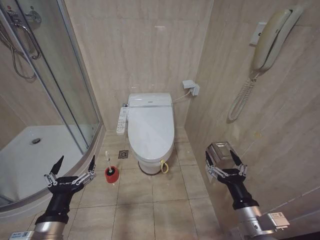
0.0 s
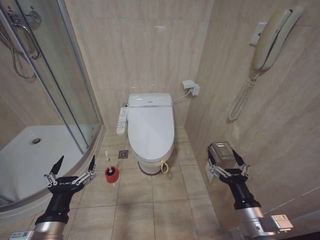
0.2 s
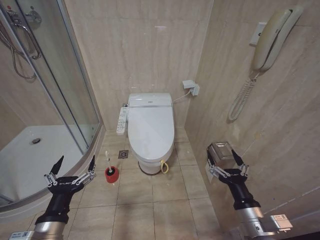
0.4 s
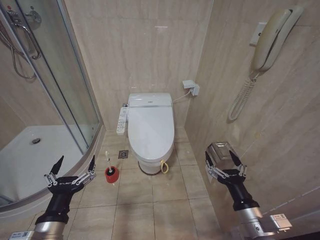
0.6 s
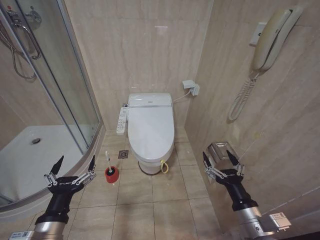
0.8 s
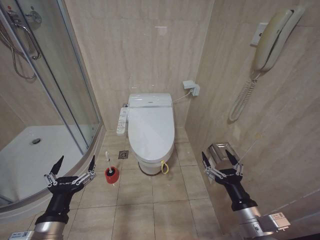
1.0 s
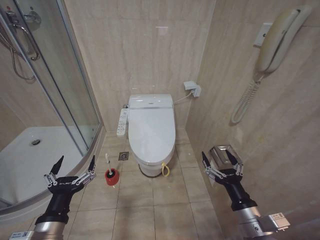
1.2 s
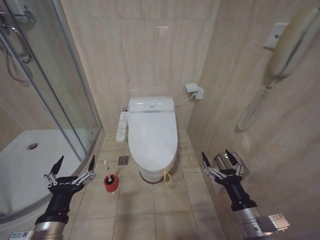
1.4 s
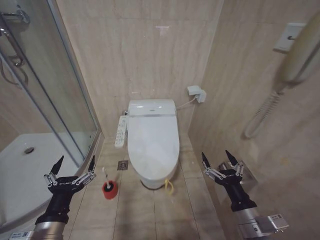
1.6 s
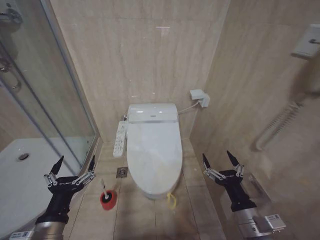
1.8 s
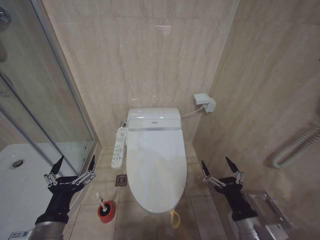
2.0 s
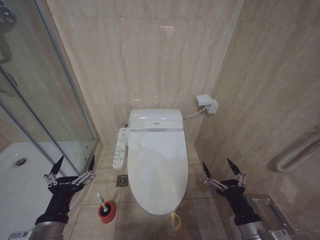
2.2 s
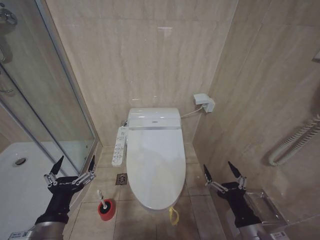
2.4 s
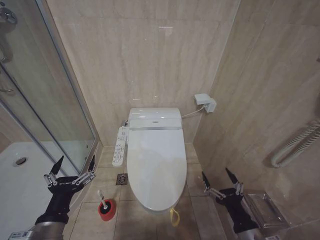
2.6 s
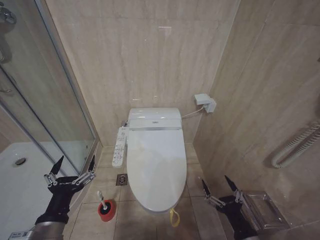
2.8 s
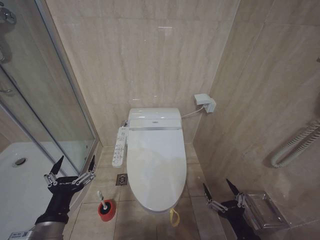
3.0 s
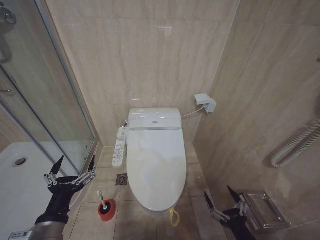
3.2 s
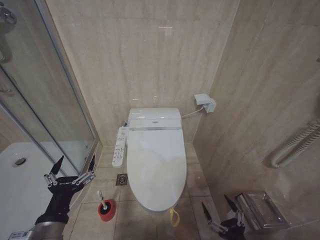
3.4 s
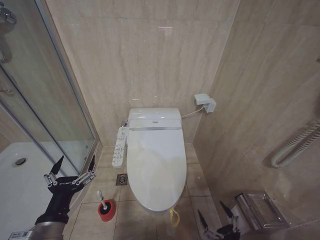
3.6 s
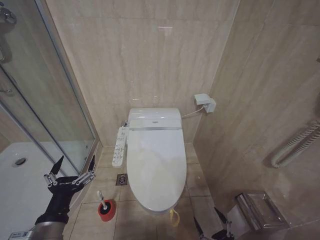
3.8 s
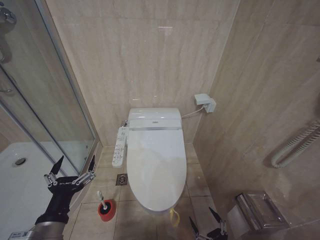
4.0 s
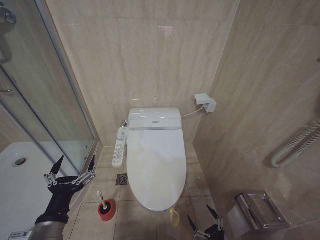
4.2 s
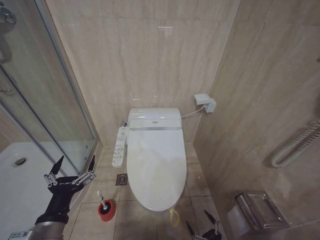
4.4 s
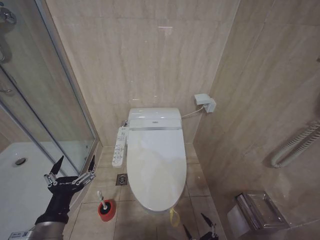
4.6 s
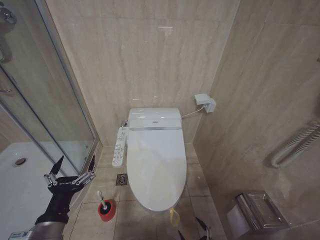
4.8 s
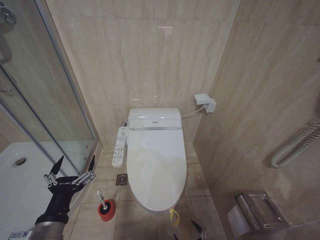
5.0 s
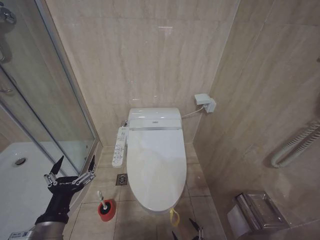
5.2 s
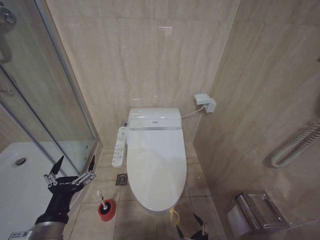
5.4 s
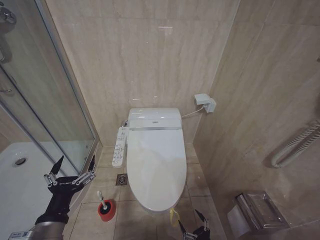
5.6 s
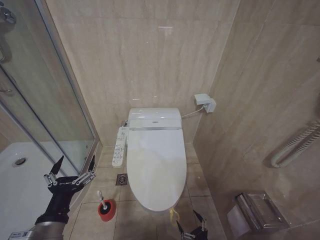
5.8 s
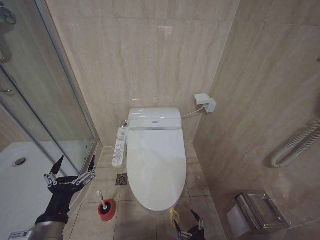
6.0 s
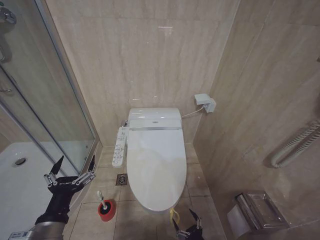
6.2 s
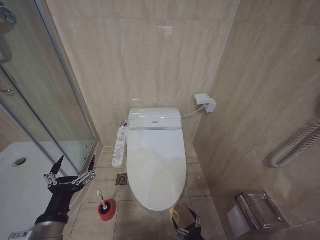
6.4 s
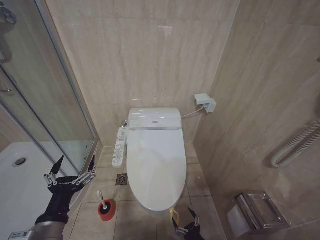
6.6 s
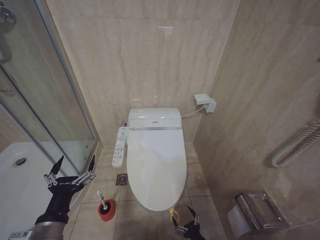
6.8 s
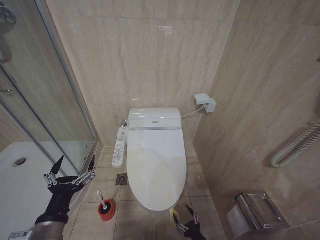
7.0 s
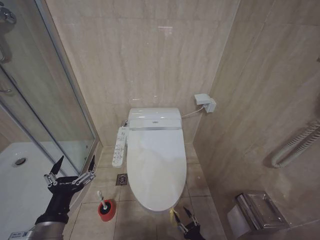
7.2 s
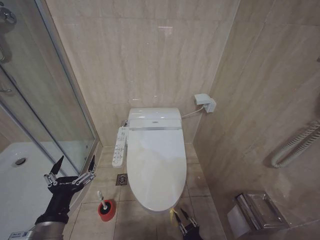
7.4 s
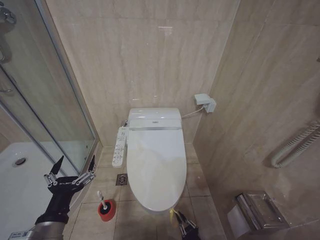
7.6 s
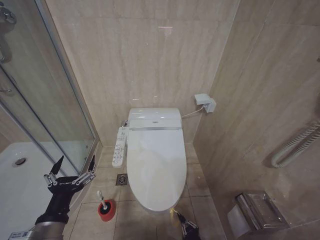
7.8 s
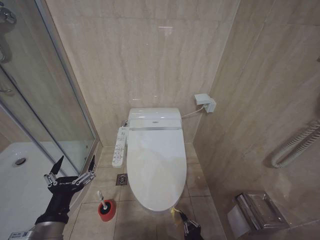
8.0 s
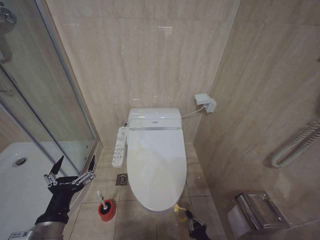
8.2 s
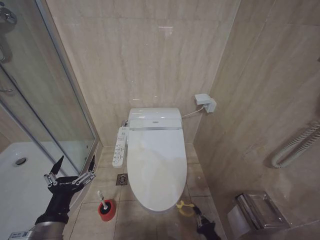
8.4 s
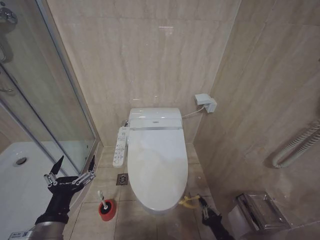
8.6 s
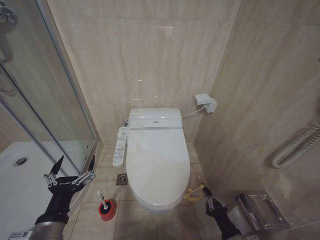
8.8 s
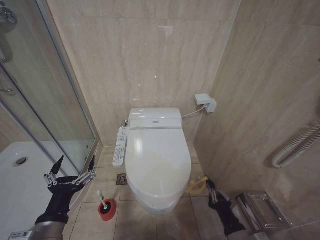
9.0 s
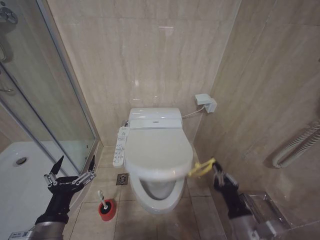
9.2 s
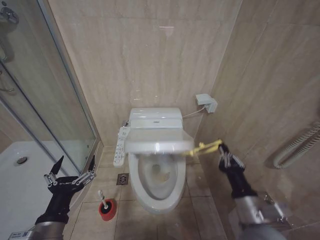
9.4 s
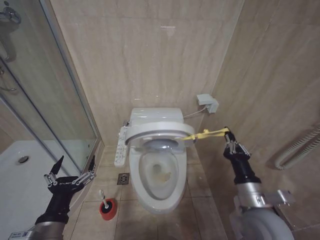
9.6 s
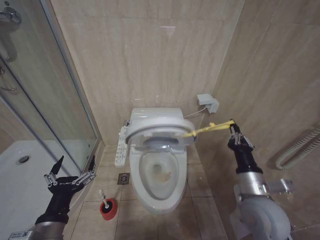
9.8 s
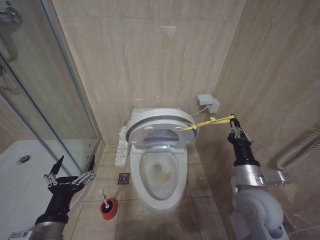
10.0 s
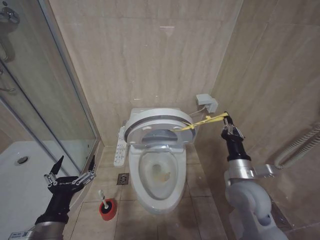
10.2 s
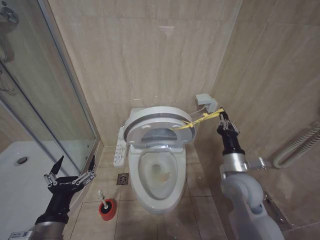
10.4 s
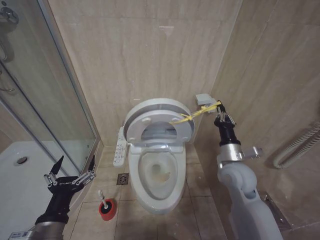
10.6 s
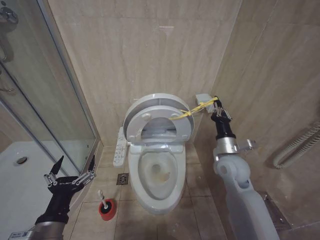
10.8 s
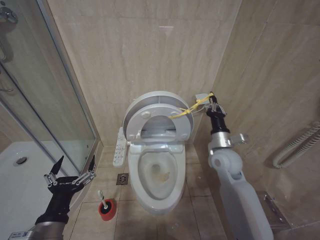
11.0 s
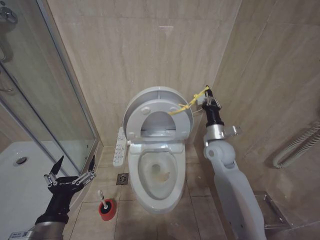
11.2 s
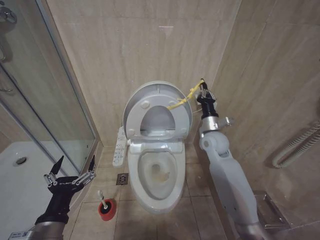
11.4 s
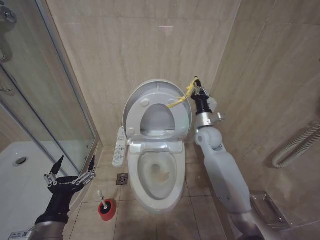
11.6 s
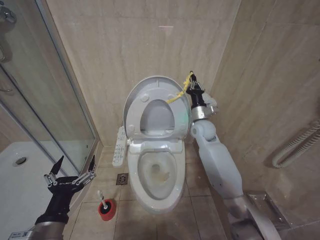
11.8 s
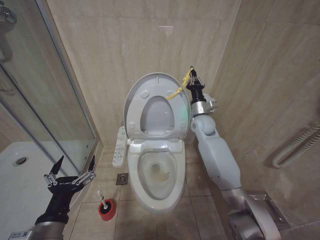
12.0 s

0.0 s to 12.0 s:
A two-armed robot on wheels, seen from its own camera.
Task of the whole recording: Open the toilet lid, clean the toilet bowl with a toilet brush, close the toilet lid, and flush.
1.6 to 3.0 s: The right gripper moves downward and backward, about 10 cm.
3.0 to 4.4 s: The right gripper moves downward, about 10 cm.
7.6 to 9.0 s: The right gripper goes roughly 15 cm upward.
9.0 to 10.4 s: The right gripper travels forward and upward by roughly 20 cm.
10.4 to 12.0 s: The right gripper heads forward, covering about 25 cm.

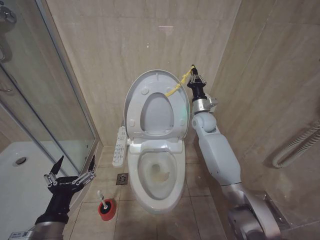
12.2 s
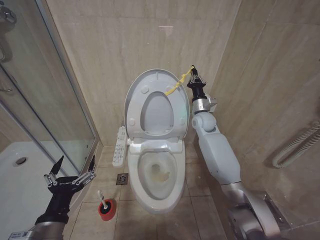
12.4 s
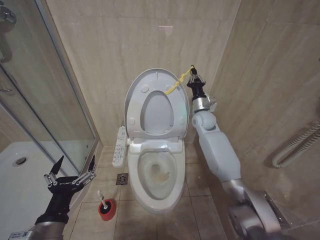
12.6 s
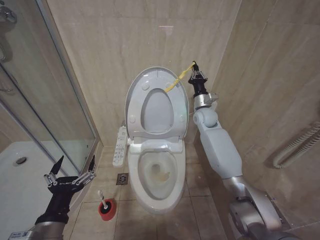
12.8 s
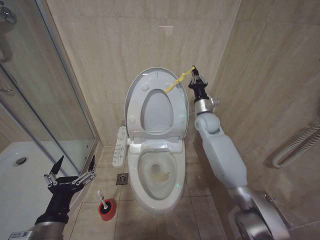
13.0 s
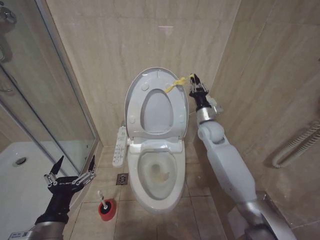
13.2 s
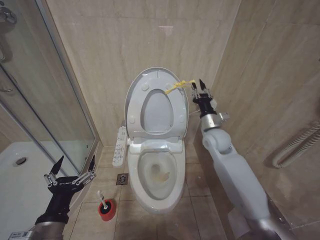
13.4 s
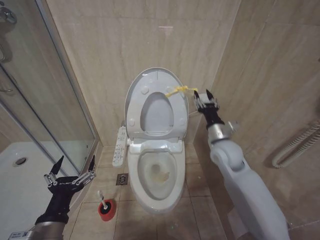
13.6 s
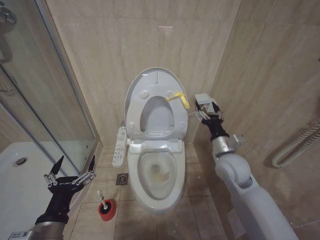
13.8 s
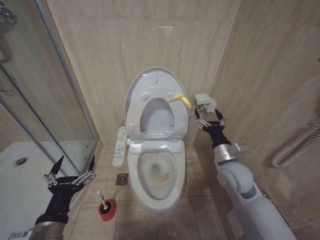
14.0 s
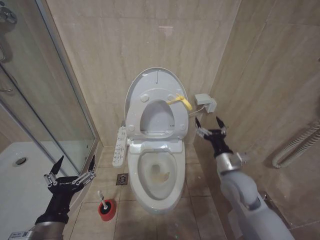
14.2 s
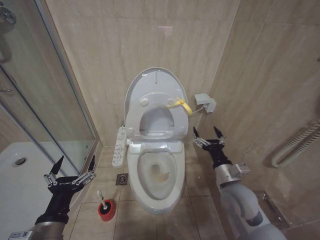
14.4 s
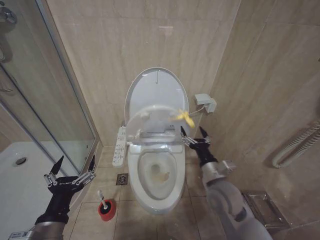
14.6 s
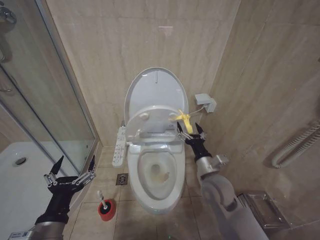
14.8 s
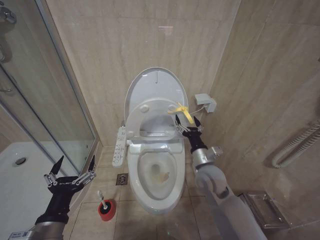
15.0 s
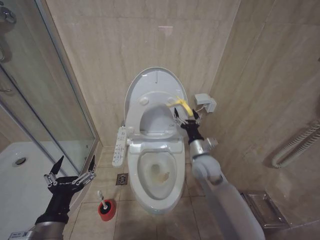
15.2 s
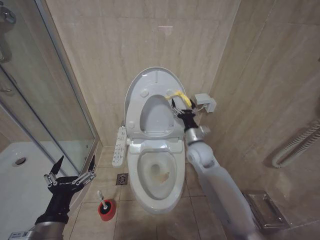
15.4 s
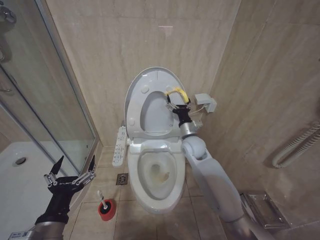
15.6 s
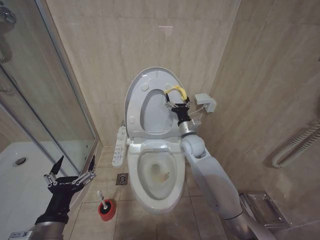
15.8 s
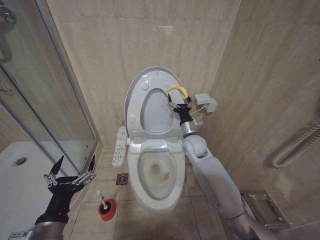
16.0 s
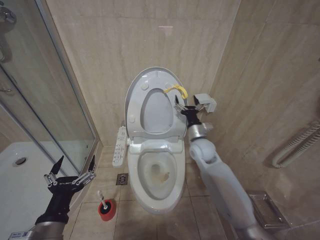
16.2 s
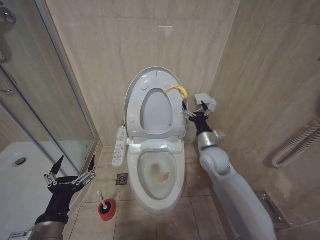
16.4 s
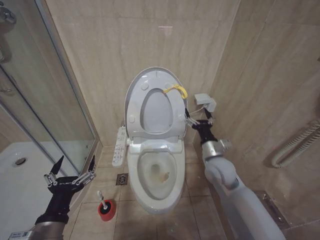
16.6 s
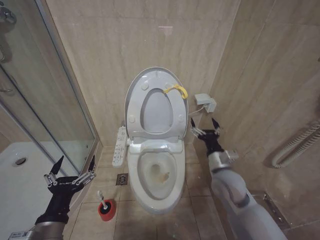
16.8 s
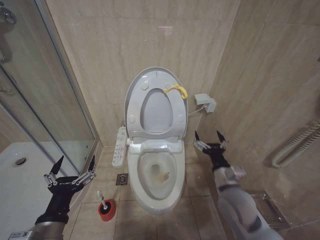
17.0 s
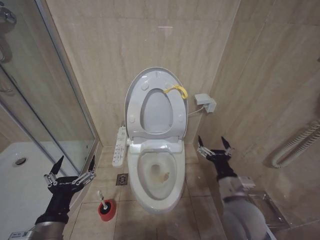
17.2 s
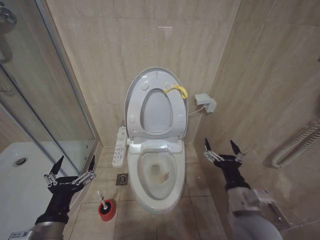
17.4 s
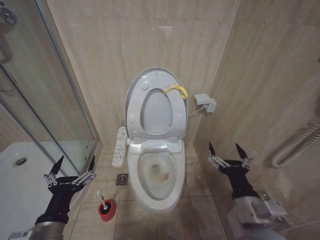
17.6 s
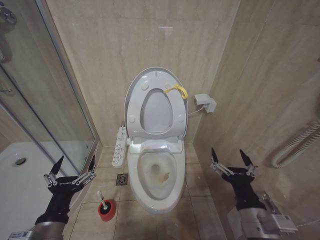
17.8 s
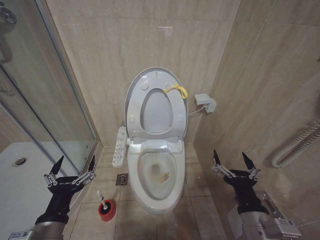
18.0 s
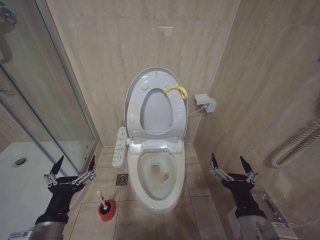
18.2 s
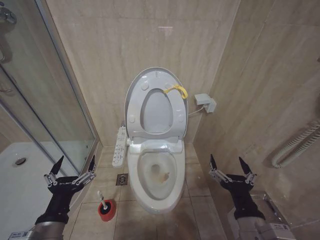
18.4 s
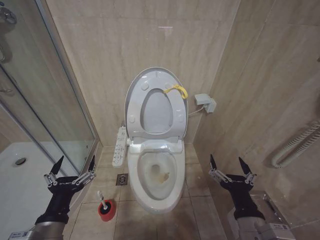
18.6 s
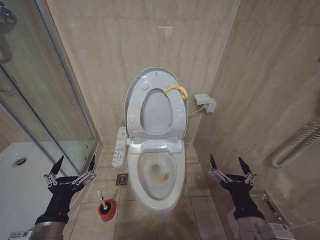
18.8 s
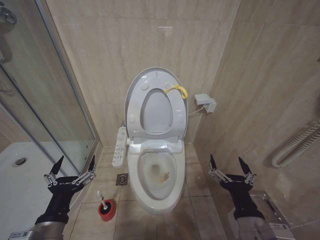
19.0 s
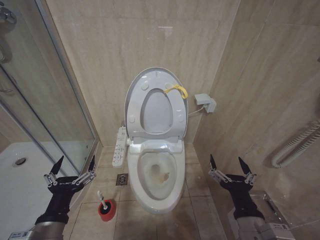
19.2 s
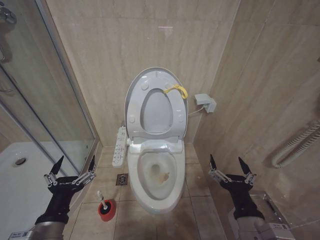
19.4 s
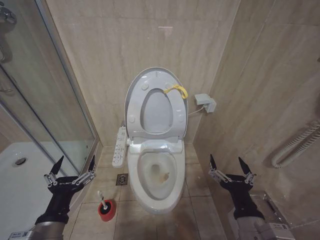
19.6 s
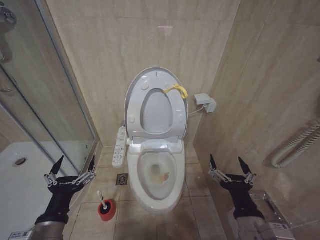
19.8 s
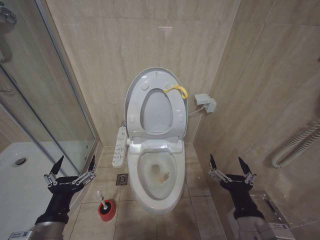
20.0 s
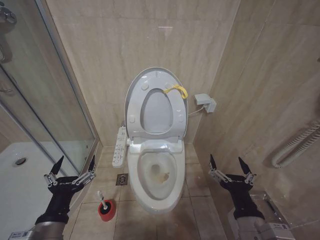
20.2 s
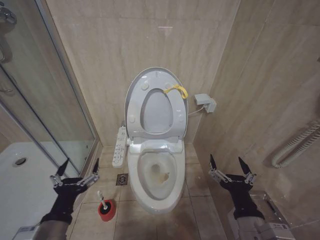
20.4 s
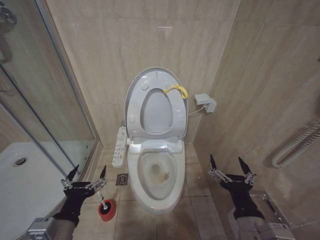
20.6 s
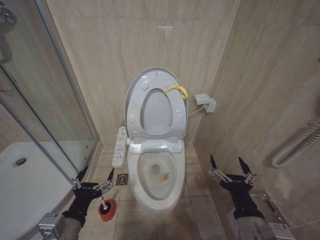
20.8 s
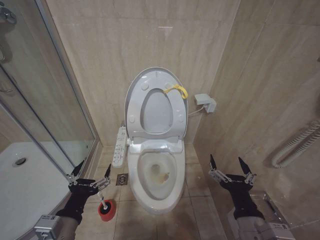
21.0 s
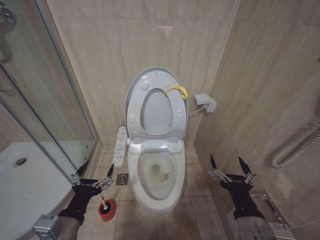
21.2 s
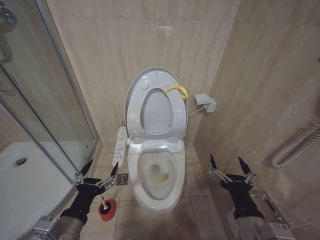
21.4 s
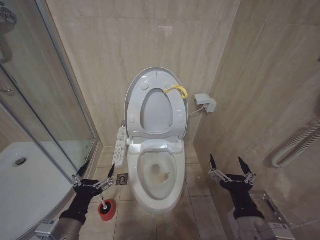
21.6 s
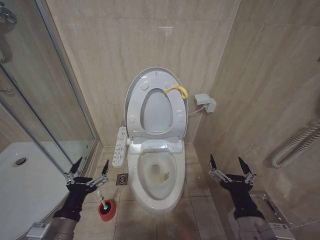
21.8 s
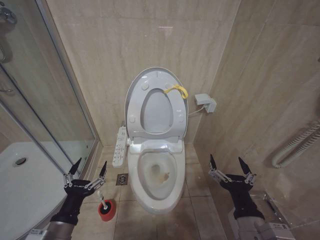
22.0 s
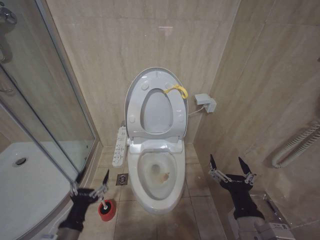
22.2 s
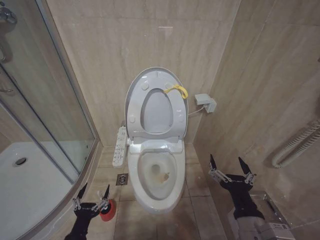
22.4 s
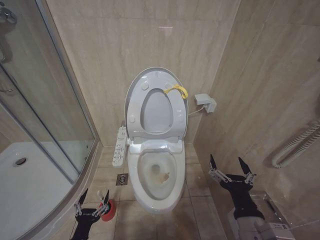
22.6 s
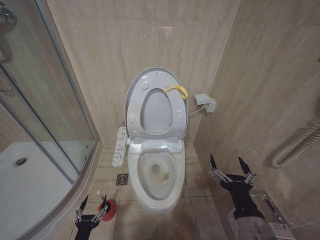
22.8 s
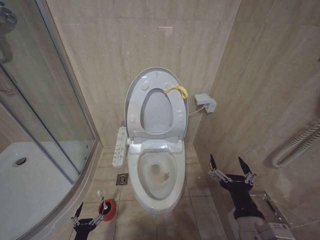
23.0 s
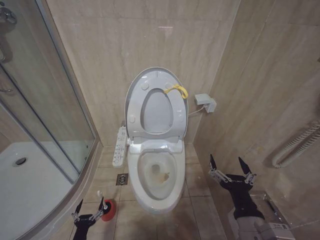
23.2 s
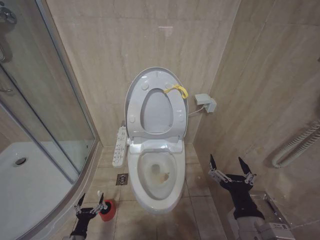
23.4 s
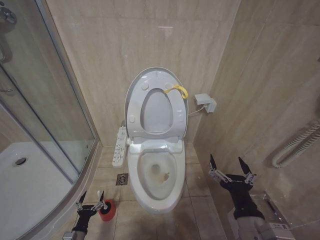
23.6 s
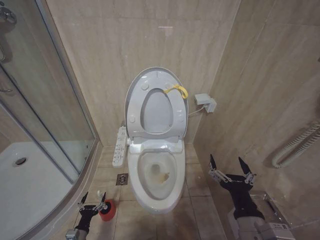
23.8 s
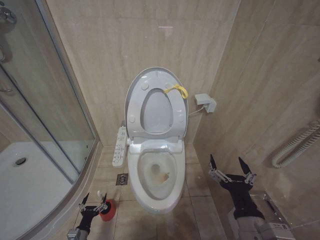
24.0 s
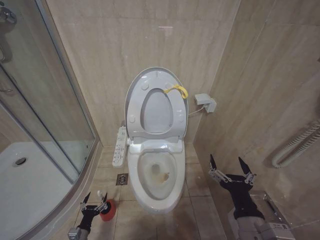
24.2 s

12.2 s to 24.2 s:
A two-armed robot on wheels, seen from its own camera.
Task of the whole recording: Open the toilet lid, clean the toilet bowl with a toilet brush, close the toilet lid, and flush.
12.2 to 13.8 s: The right gripper heads backward, covering about 20 cm, and opens up.
13.8 to 15.2 s: The right gripper moves to the left and downward, approximately 10 cm, and moves approximately 10 cm backward and comes back.
15.2 to 16.6 s: The right gripper travels forward and back again, approximately 10 cm each way.
16.6 to 18.2 s: The right gripper heads backward, covering roughly 25 cm.
18.2 to 19.8 s: Both grippers stay put.
19.8 to 21.2 s: The grippers make only small movements.
21.2 to 22.6 s: The left gripper goes roughly 20 cm downward.
22.6 to 24.2 s: The left gripper travels downward and forward by about 20 cm.
